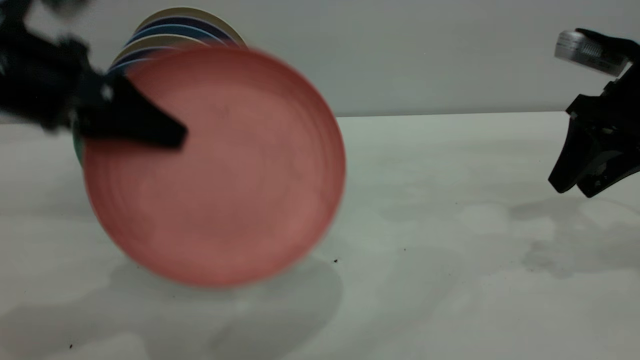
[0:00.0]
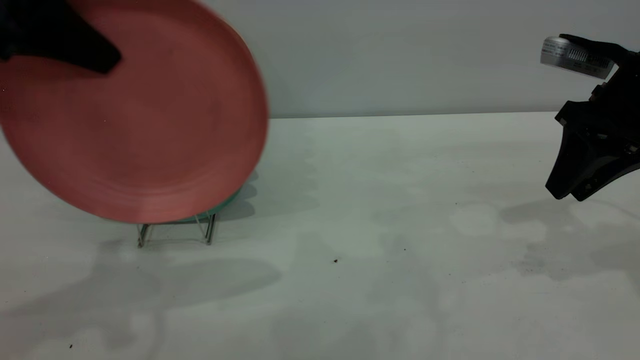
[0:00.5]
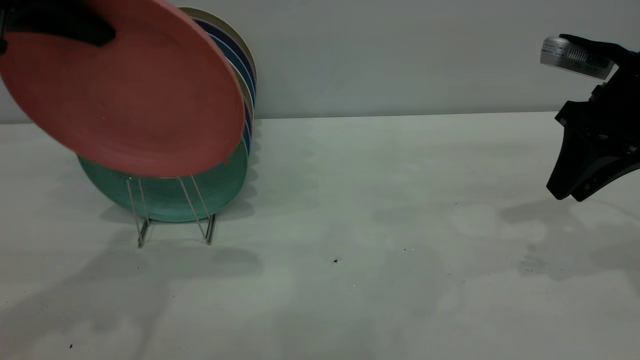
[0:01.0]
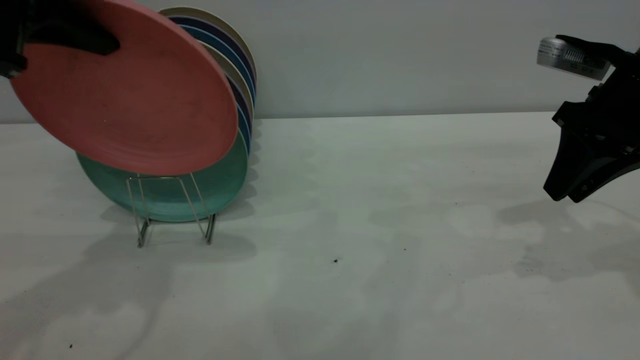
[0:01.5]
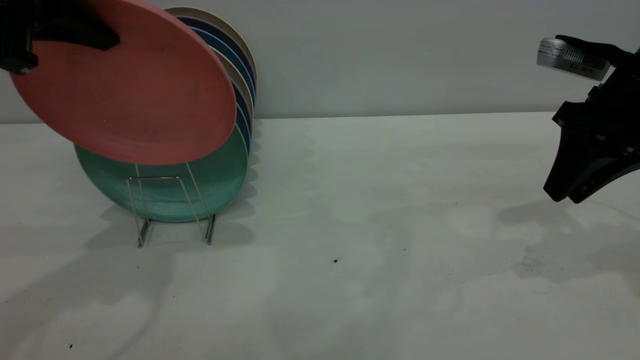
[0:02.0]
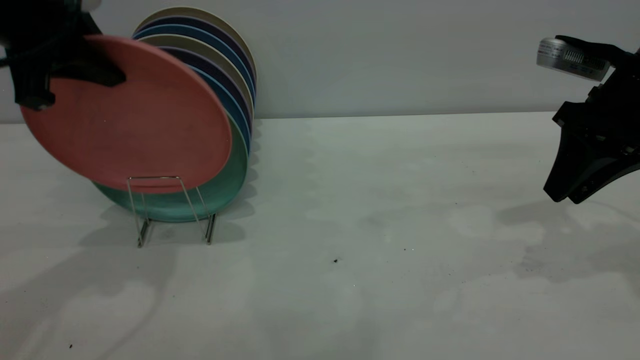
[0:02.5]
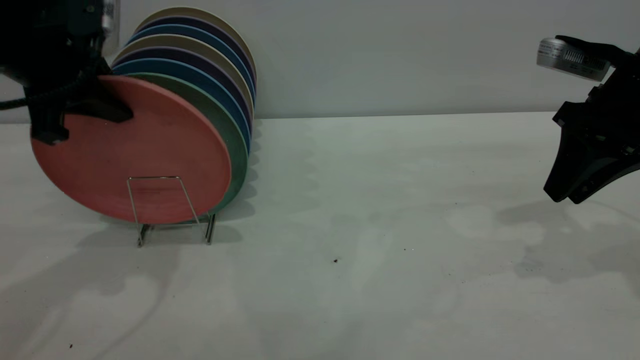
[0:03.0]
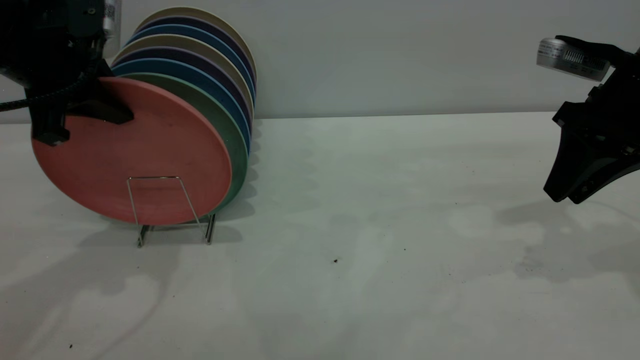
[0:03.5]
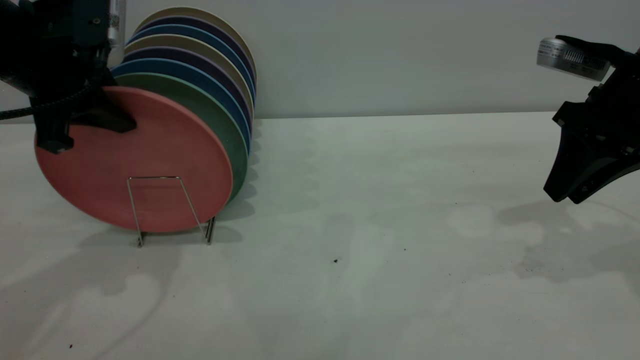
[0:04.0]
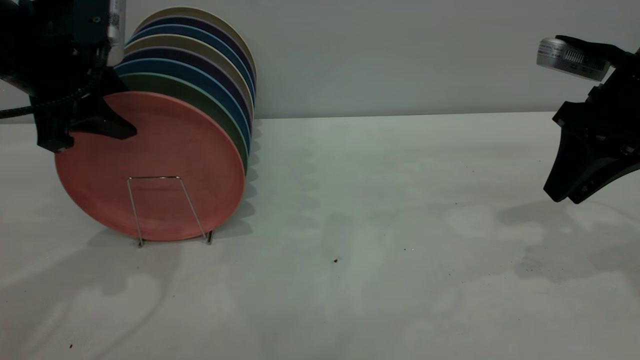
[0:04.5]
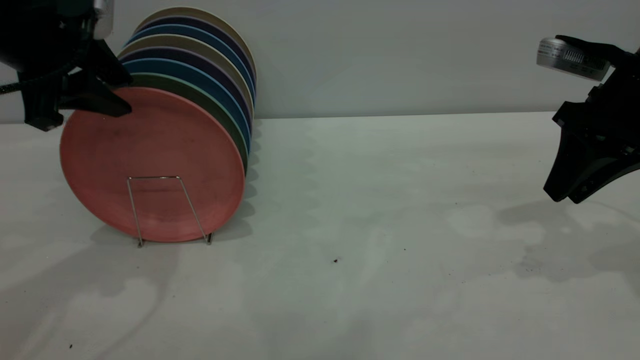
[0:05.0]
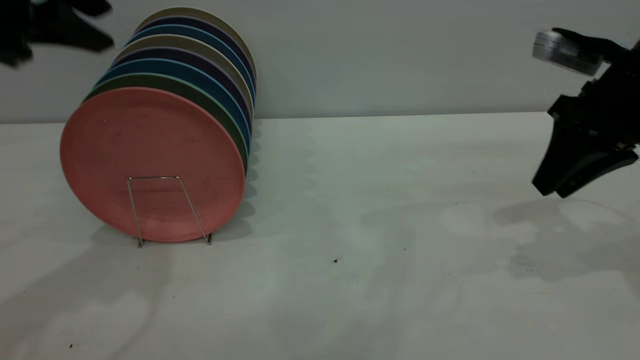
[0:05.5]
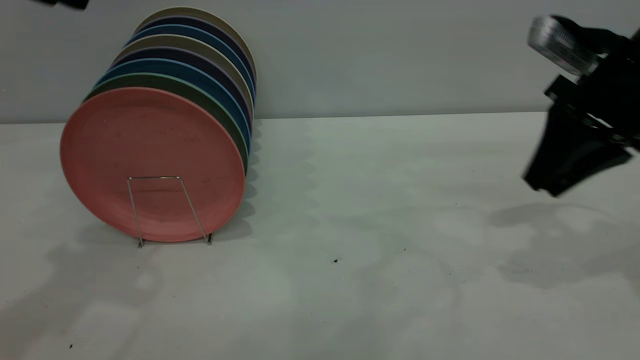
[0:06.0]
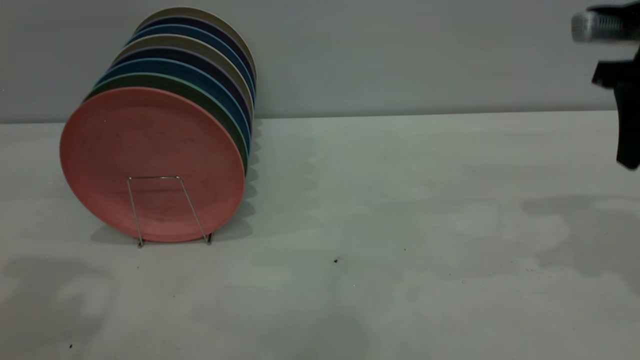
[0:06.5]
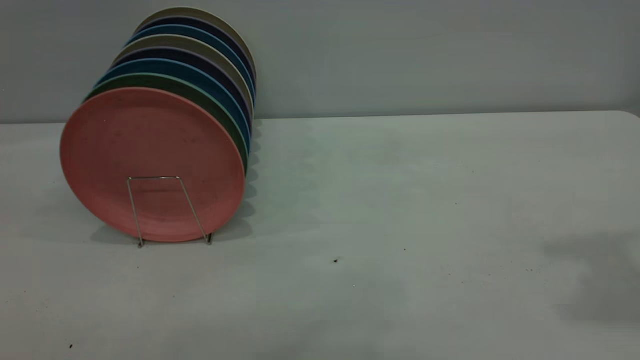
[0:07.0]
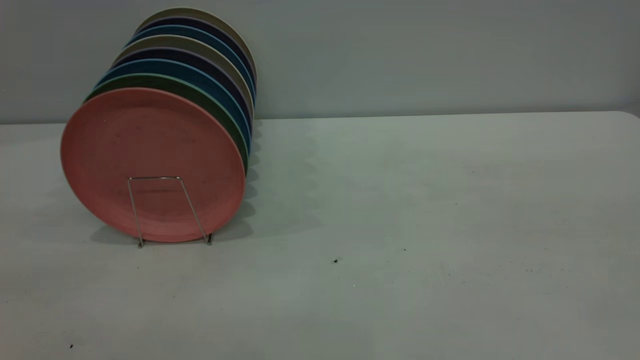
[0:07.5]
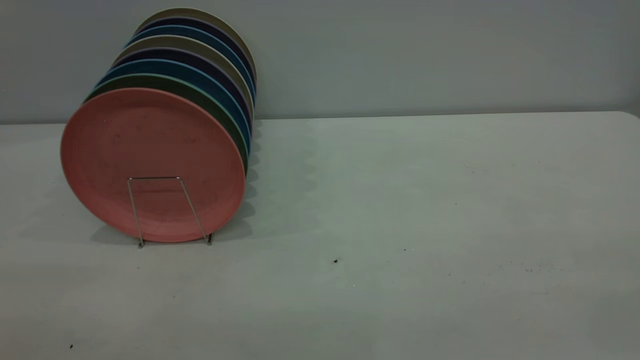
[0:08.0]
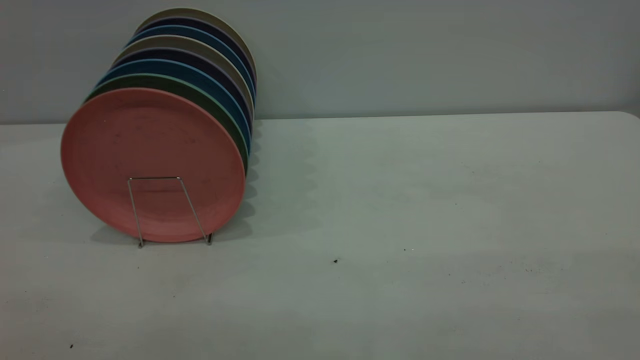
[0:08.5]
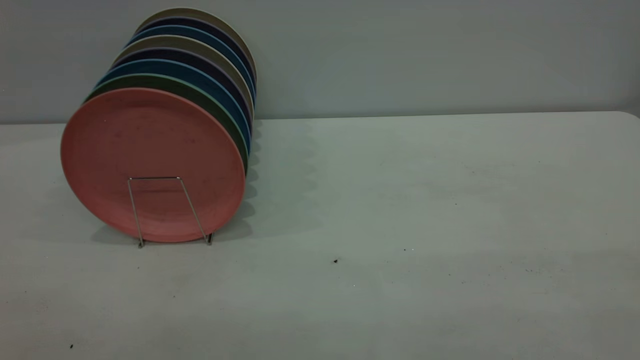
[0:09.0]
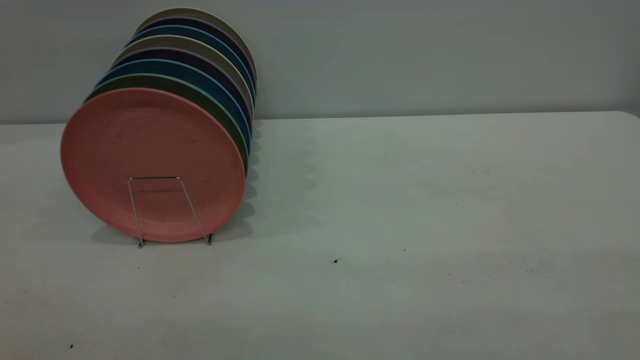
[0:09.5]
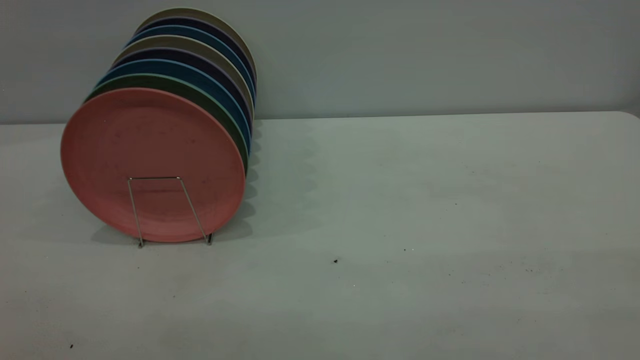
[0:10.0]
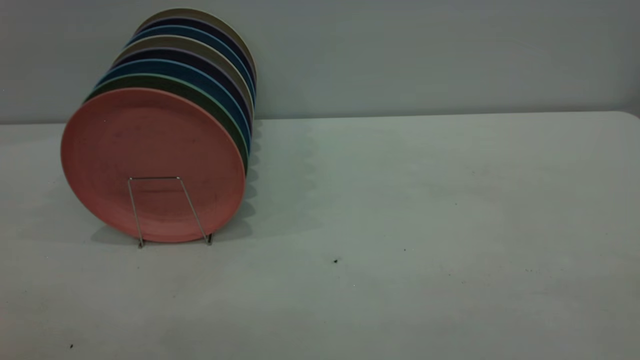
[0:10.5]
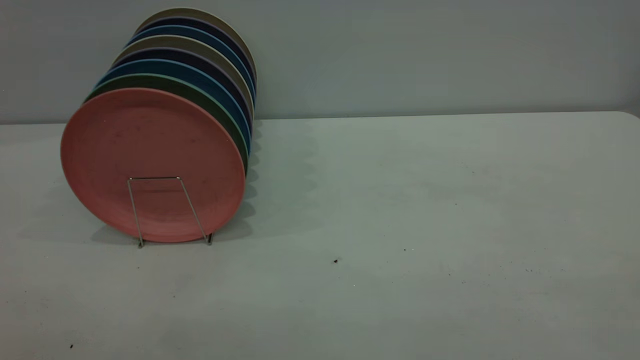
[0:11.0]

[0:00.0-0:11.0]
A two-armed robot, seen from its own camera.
Task of the whole recording: the right gripper grasp the pink plate, the right gripper pass the pink plate to the left gripper, and the left gripper place the pink plate on the plate rack.
Step, 0:02.0 to 0:05.5: Place the plate on the shelf.
0:00.0 to 0:02.0: The left gripper shifts some 5 cm upward.
0:02.0 to 0:03.5: The left gripper heads downward, covering roughly 5 cm.
0:03.5 to 0:05.5: The left gripper moves upward, about 10 cm, and opens up.
0:05.5 to 0:07.5: The left gripper travels backward by roughly 25 cm, while the right gripper travels backward and upward by about 40 cm.
